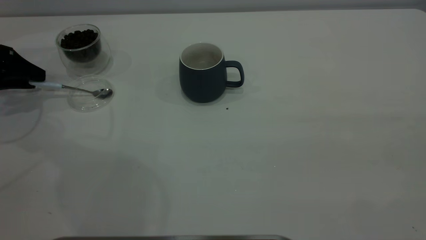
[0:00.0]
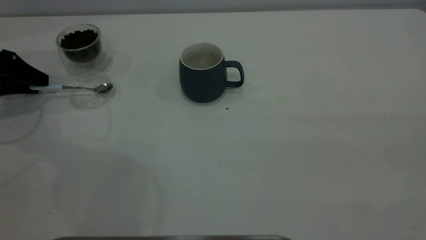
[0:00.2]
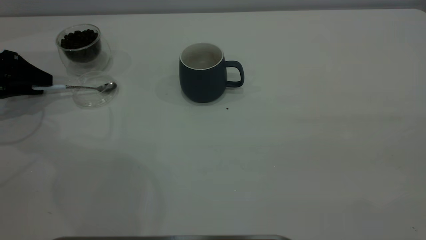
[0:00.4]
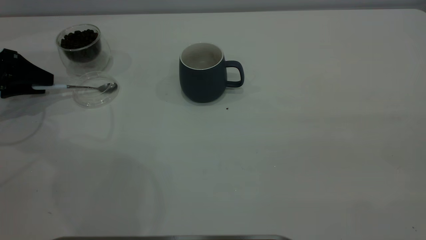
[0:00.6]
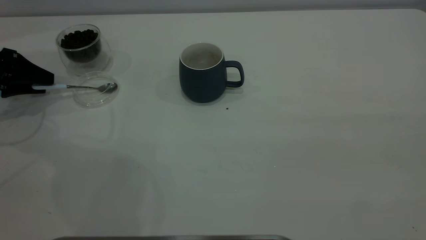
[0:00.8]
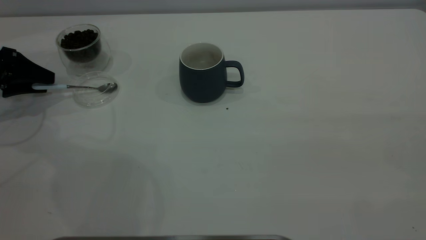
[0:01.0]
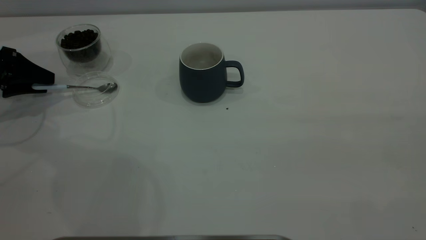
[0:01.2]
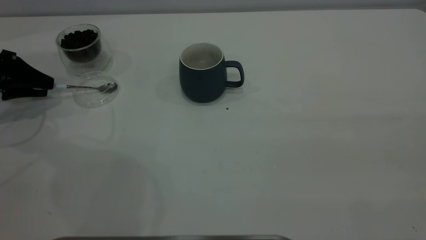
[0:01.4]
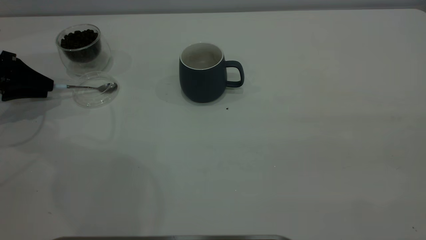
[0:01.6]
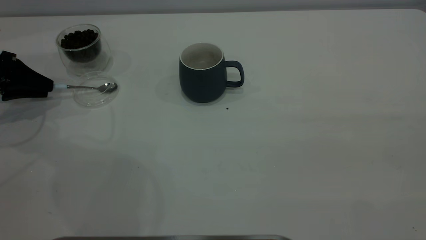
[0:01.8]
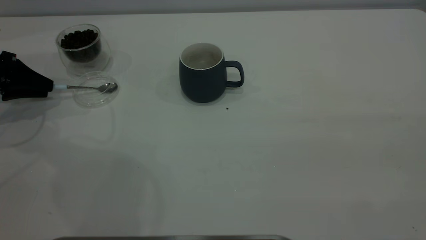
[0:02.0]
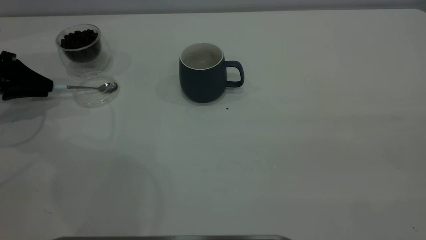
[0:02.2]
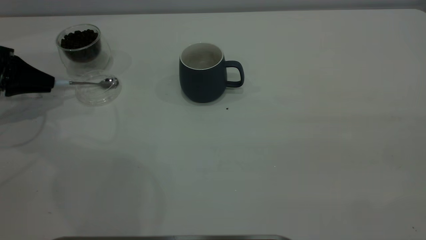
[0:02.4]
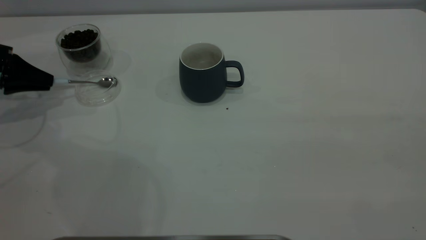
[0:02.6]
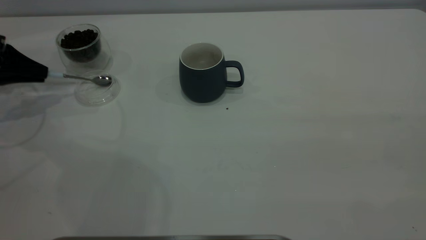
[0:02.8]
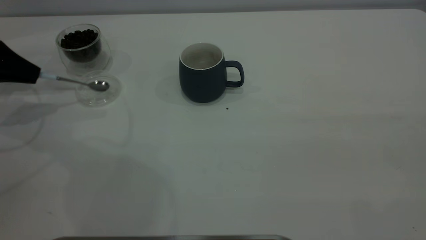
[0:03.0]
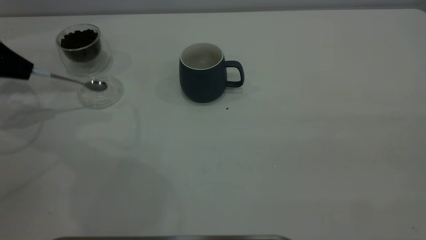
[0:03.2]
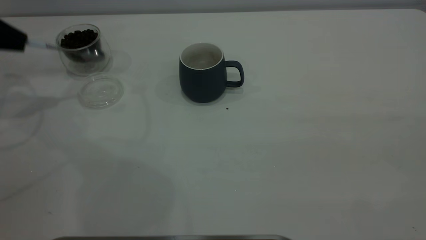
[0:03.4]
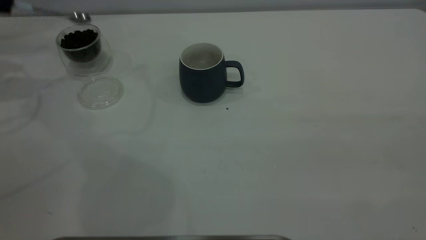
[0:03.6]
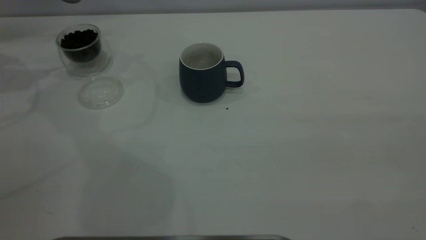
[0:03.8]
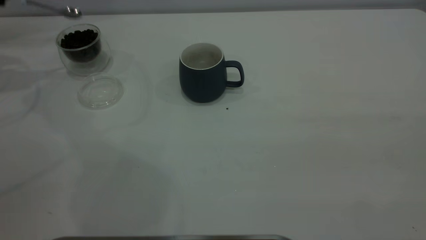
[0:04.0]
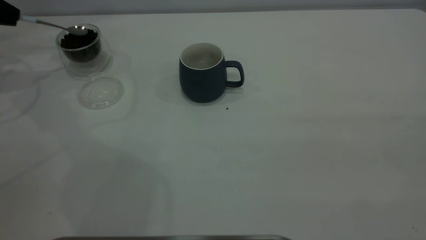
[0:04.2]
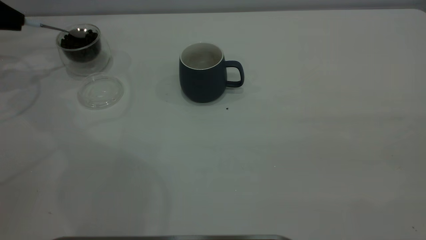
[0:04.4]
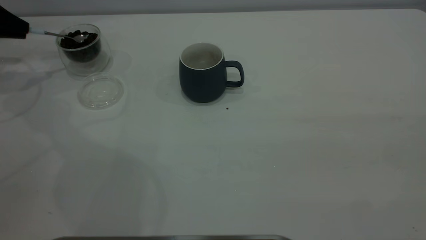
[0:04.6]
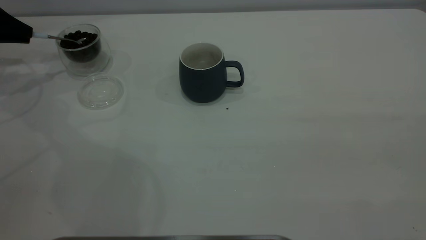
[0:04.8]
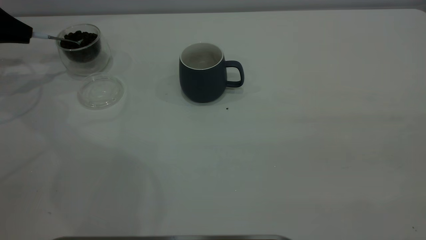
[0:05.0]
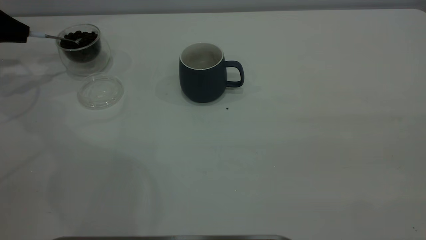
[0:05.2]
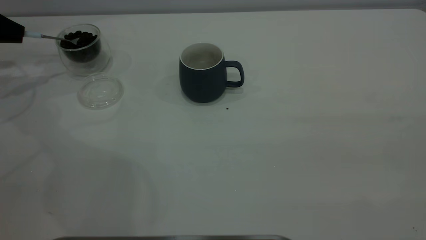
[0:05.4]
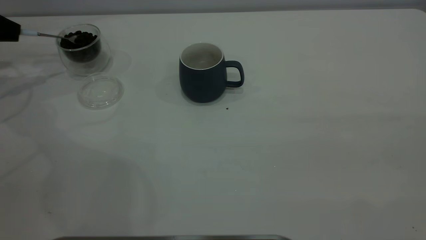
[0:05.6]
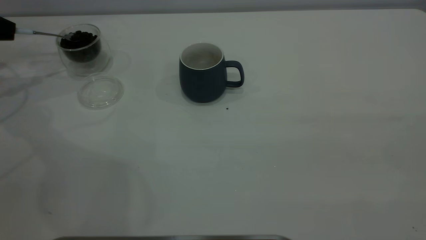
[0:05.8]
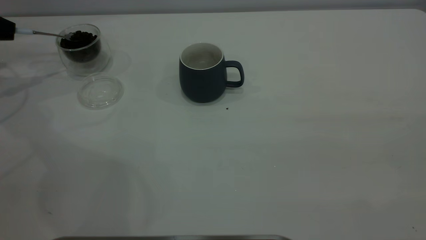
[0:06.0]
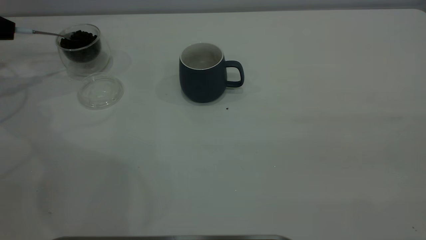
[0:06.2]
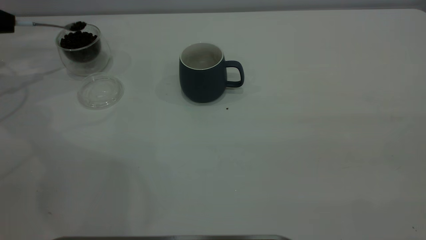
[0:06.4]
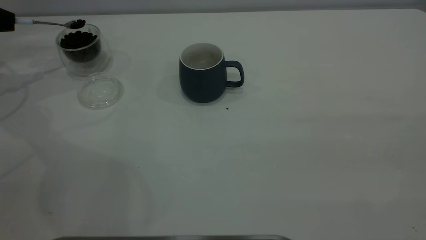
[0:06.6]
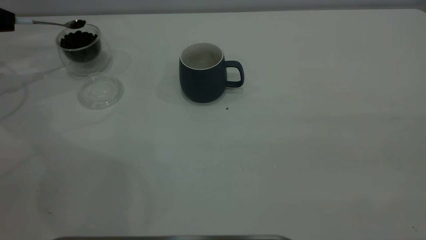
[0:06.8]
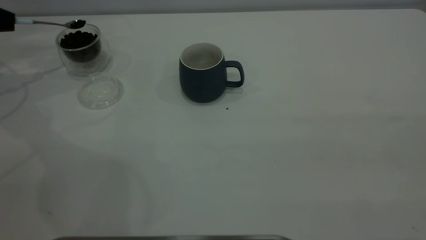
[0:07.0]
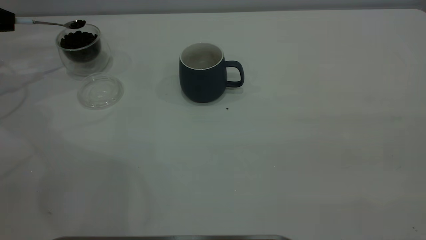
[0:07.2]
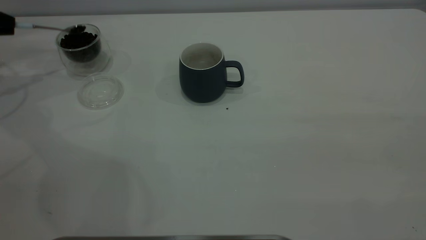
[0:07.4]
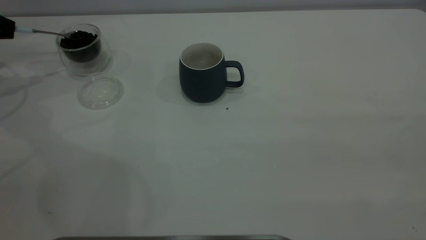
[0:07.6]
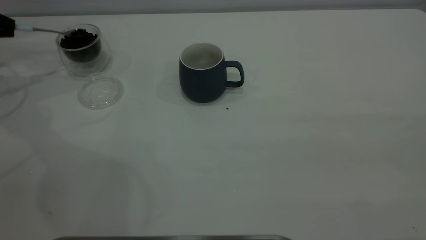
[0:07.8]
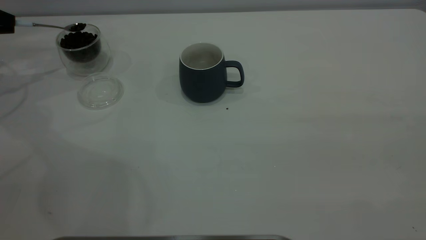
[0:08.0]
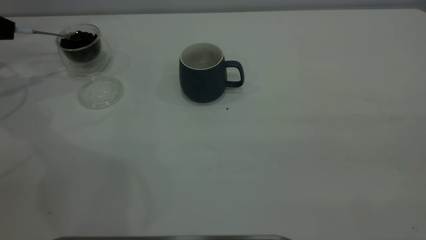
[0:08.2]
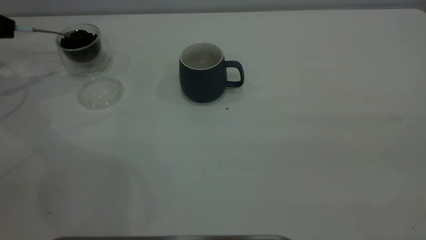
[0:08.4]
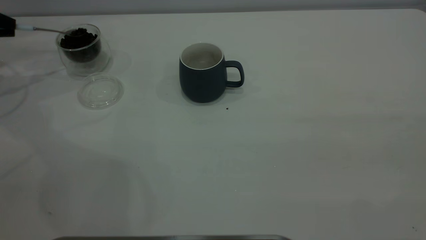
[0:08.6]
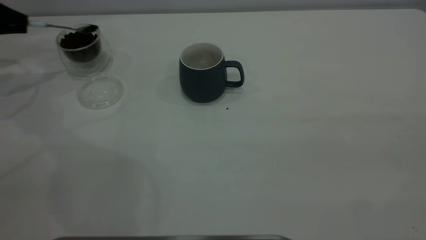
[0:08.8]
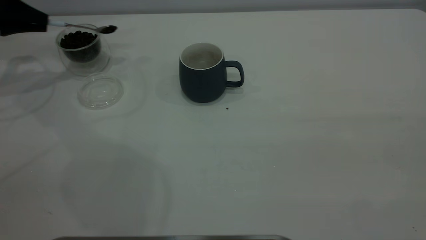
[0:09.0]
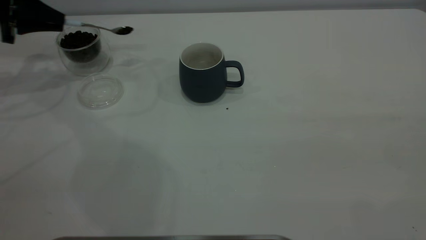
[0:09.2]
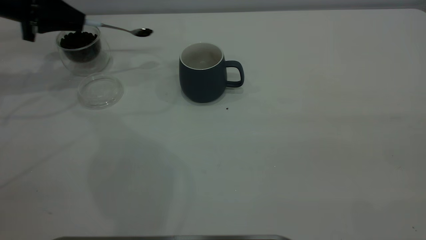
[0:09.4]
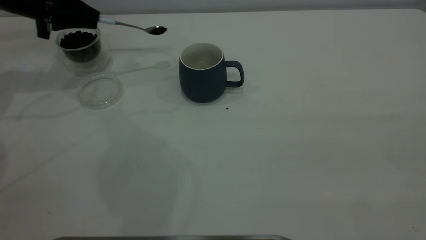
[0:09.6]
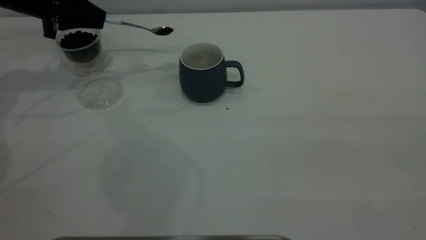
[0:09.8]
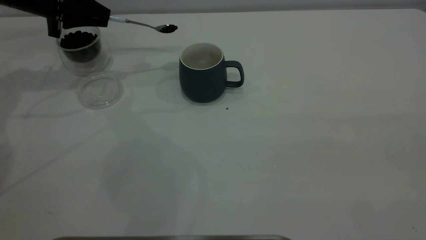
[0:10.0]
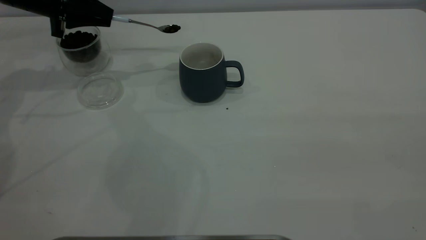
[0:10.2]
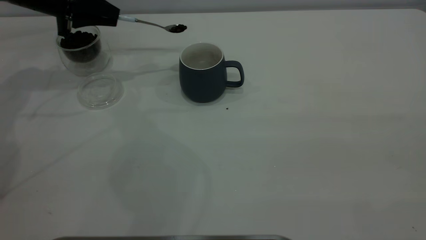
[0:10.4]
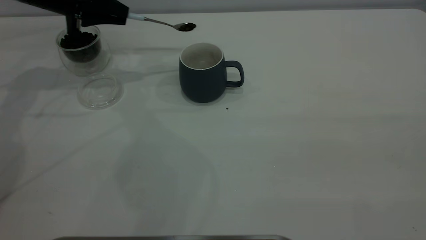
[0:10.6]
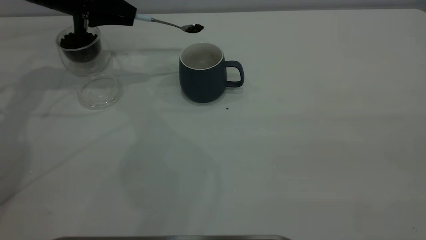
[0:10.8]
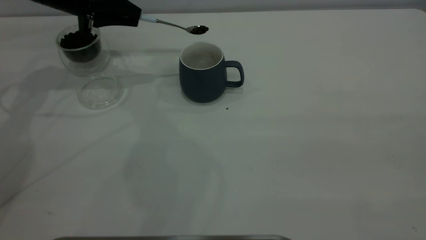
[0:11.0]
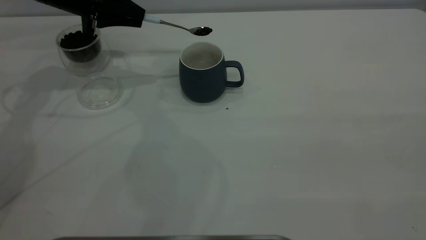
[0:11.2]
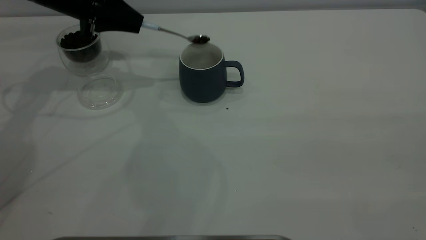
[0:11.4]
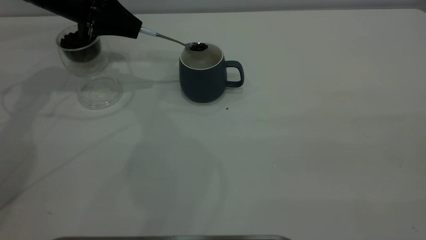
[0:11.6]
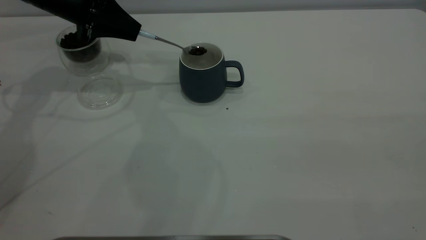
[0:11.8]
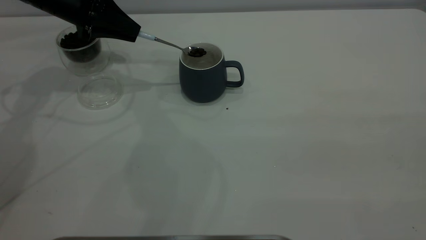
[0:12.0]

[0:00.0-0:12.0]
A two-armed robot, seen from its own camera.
Task of the whole recording: the right gripper place the grey cup in the center of the table, the left gripper take the blue spoon from the cup lid and scoop out the coffee beans from the coffee cup and put them into the grey cup, the left gripper put the spoon back into the cup lid.
Step, 0:00.0 to 0:03.4: Pick up the spoon.
0:00.0 to 0:01.6: The grippers make only small movements.
0:01.6 to 0:03.0: The left gripper shifts some 5 cm upward, and closes its fingers.
0:03.0 to 0:04.4: The left gripper goes roughly 5 cm forward.
0:07.6 to 0:09.0: The left gripper heads to the right, covering about 5 cm.
0:09.0 to 0:10.4: The left gripper moves to the right, roughly 10 cm.
0:10.4 to 0:12.0: The grippers make only small movements.

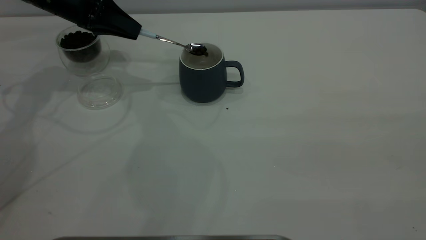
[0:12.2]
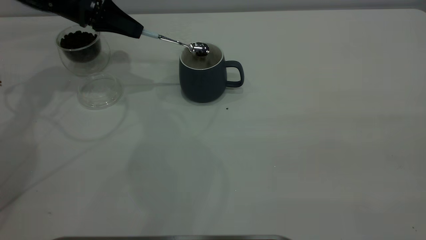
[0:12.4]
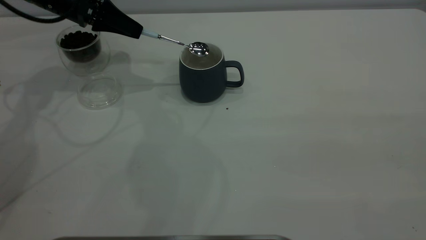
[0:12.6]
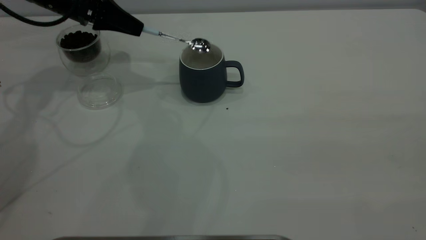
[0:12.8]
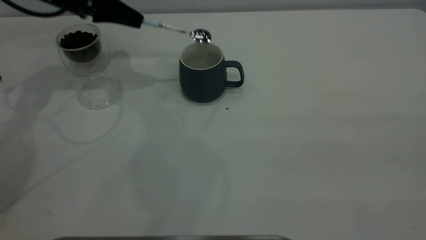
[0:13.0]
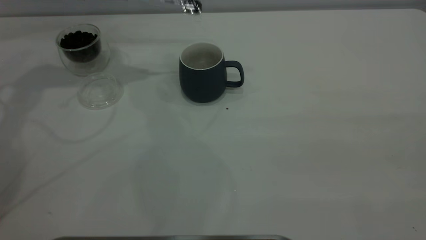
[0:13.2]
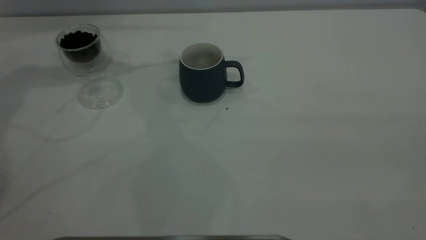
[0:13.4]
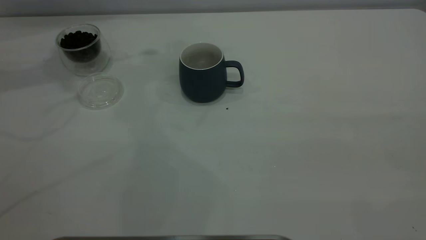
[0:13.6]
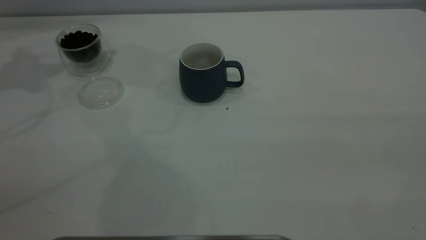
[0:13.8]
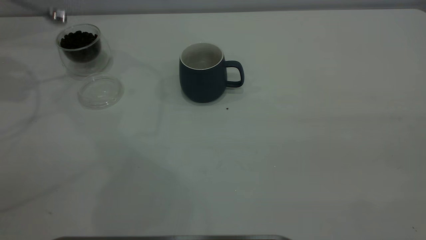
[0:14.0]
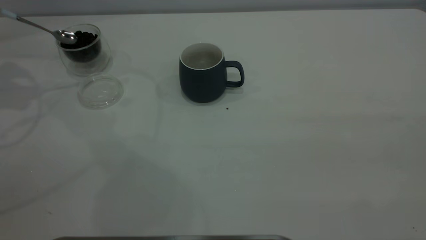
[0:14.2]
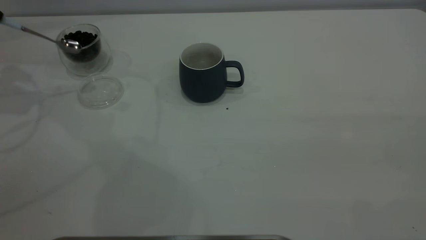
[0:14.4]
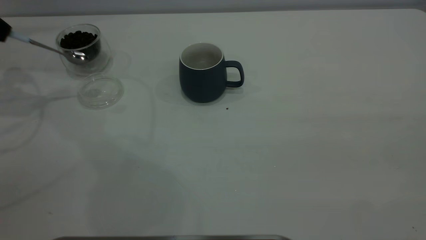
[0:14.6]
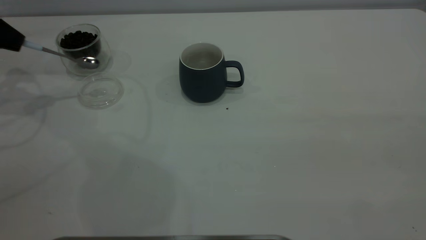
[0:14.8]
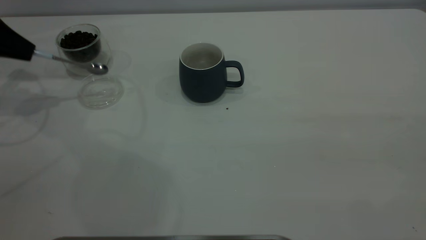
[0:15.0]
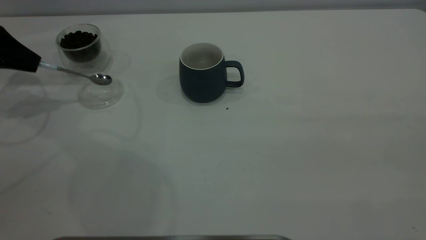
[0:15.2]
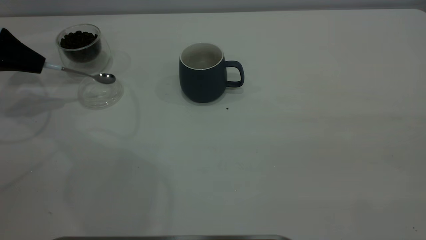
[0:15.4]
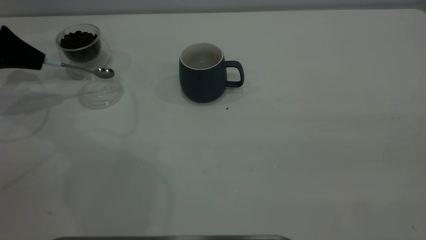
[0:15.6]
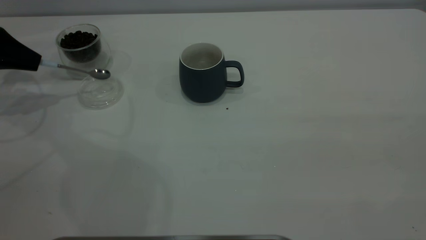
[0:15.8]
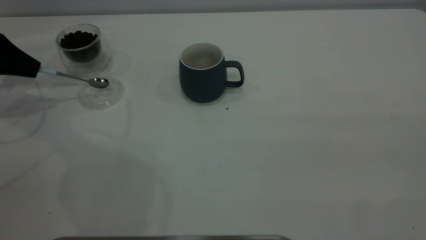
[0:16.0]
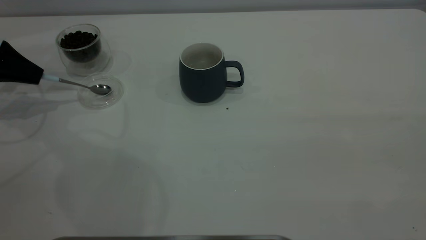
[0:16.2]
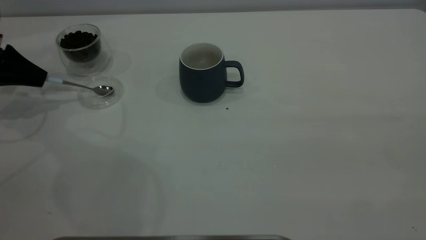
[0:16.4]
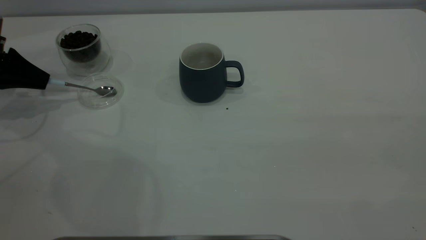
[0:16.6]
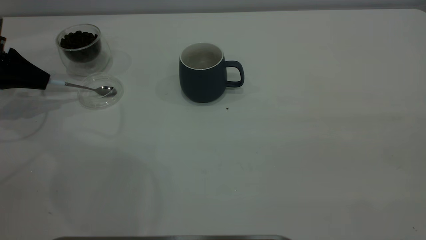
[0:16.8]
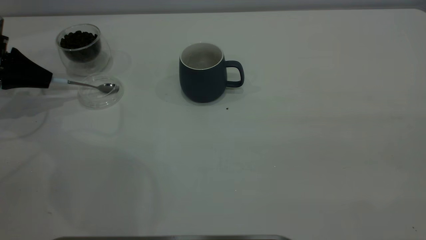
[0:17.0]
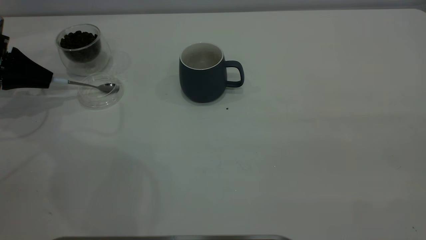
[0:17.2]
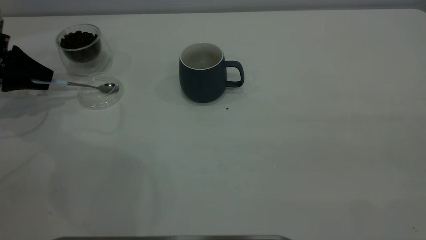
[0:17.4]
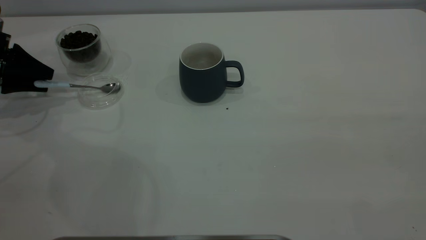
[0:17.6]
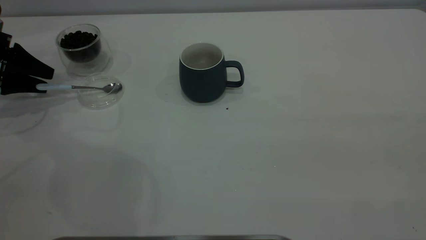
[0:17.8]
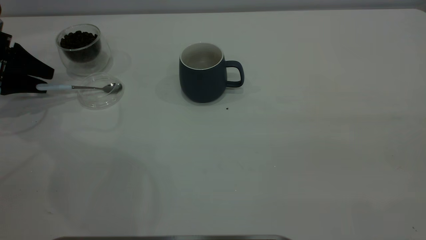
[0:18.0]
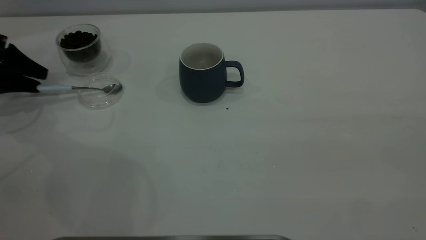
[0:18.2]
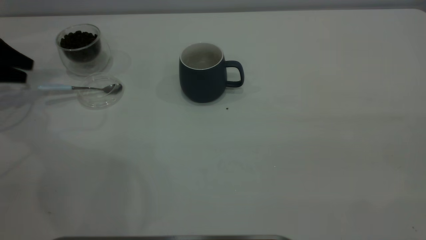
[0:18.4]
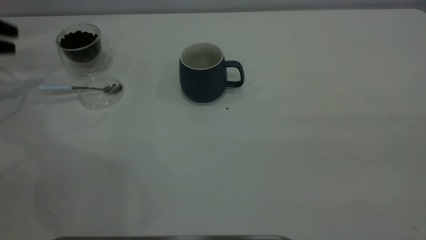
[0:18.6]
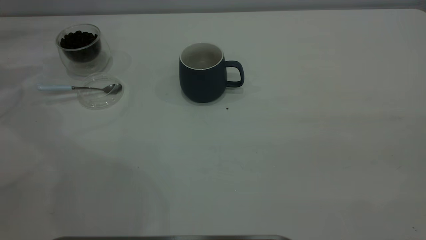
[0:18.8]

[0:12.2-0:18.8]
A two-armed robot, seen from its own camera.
Task of the whole recording: the right gripper place the grey cup in the center of the table, the left gripper take the blue spoon from the cup lid and scoop out the coffee beans from the coffee cup and put them into the grey cup, the left gripper put the spoon back into the cup lid.
Step, 0:13.2 to 0:18.6: Place the spoon back in its original place.
0:12.2 to 0:13.8: The left gripper moves to the left and upward, approximately 20 cm.
0:13.8 to 0:15.4: The left gripper shifts about 15 cm downward.
0:15.4 to 0:17.2: The grippers move only a little.
0:17.2 to 0:18.8: The left gripper moves upward, some 15 cm, and opens its fingers.
